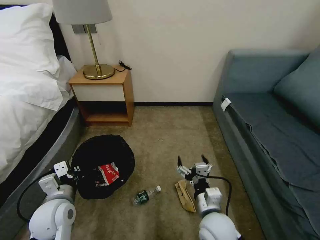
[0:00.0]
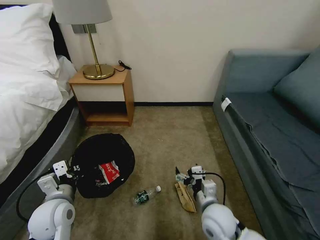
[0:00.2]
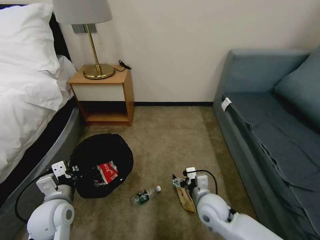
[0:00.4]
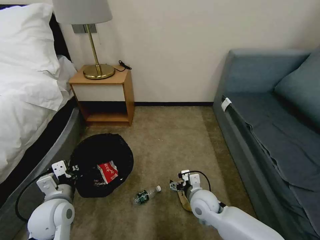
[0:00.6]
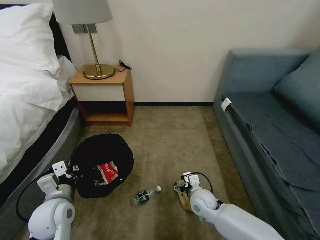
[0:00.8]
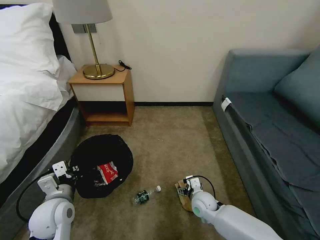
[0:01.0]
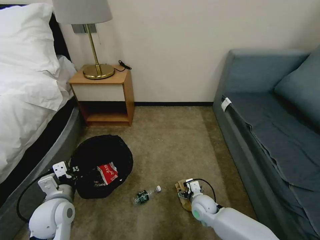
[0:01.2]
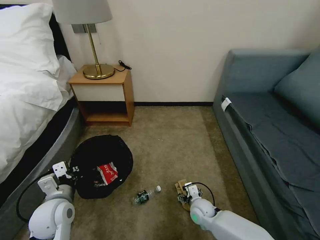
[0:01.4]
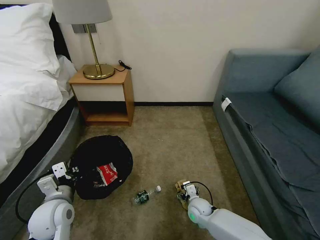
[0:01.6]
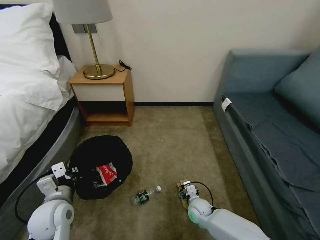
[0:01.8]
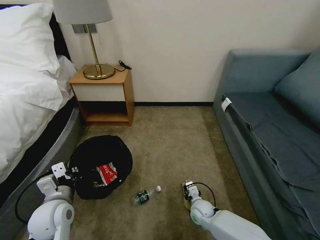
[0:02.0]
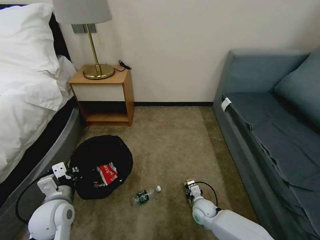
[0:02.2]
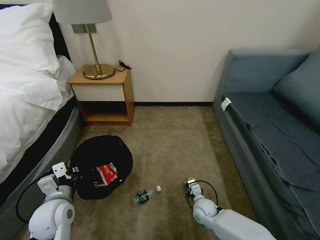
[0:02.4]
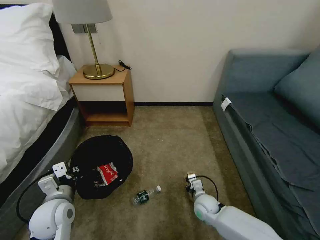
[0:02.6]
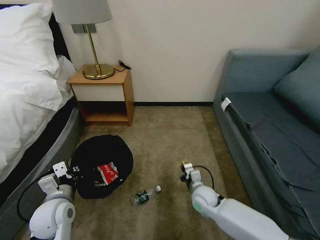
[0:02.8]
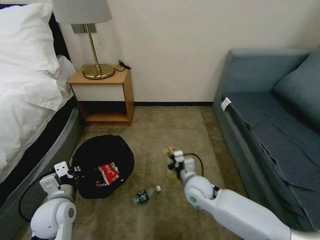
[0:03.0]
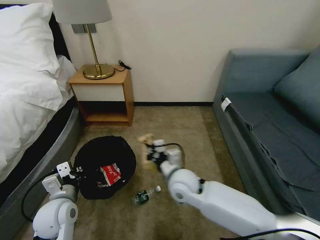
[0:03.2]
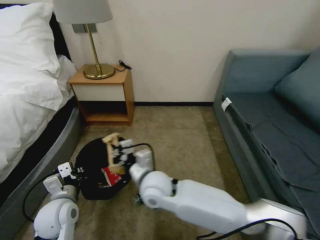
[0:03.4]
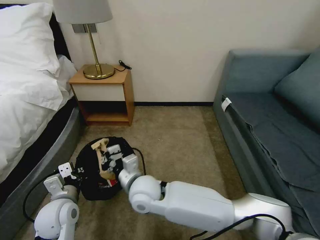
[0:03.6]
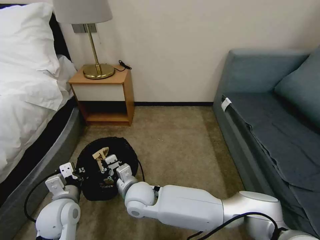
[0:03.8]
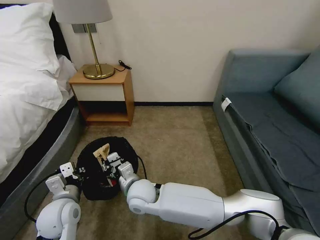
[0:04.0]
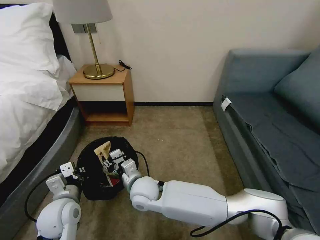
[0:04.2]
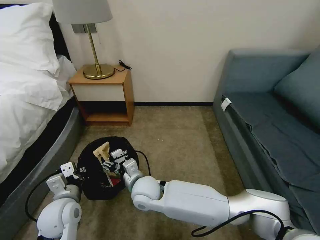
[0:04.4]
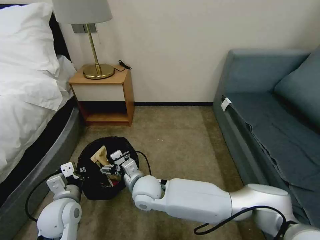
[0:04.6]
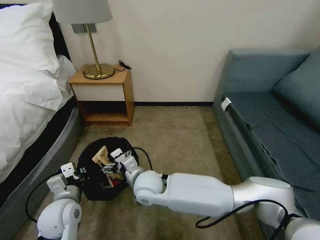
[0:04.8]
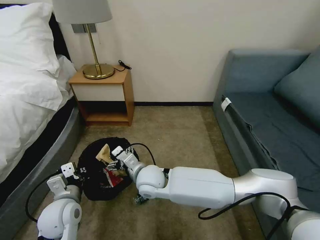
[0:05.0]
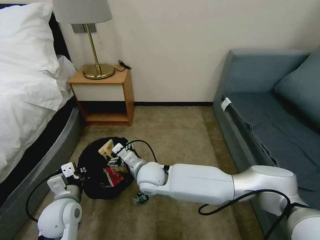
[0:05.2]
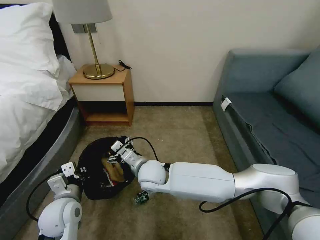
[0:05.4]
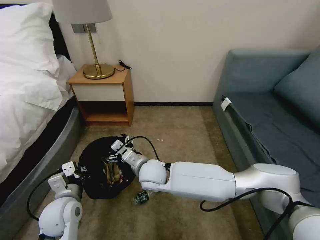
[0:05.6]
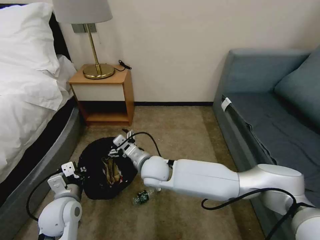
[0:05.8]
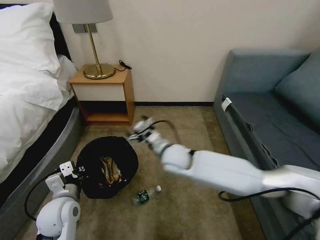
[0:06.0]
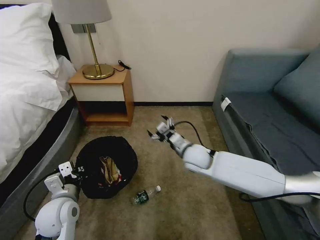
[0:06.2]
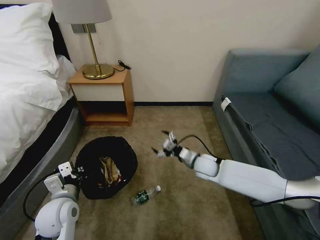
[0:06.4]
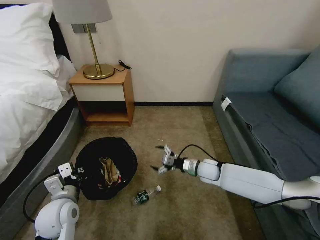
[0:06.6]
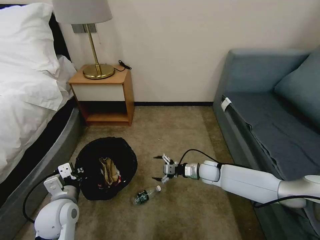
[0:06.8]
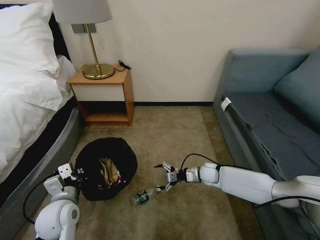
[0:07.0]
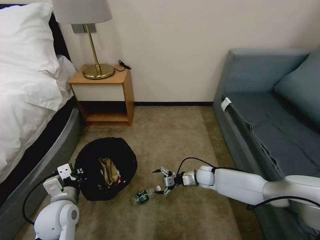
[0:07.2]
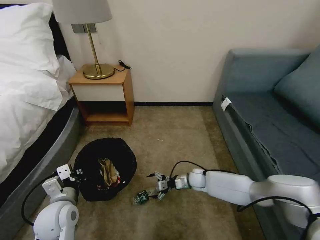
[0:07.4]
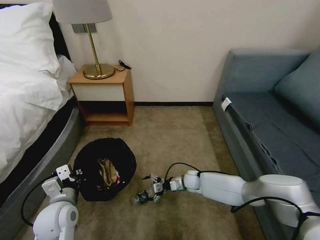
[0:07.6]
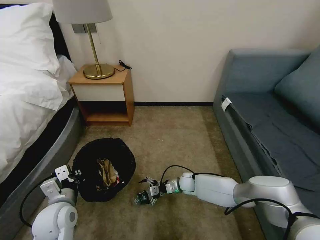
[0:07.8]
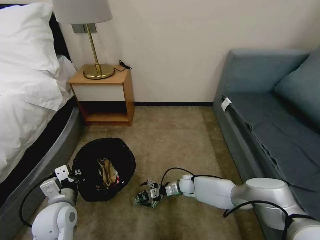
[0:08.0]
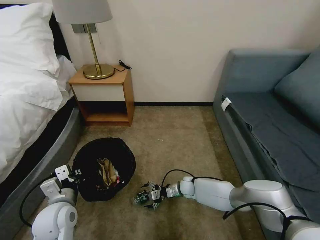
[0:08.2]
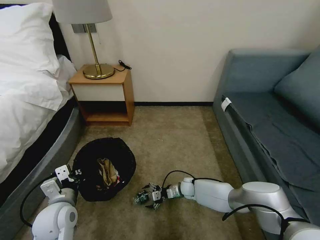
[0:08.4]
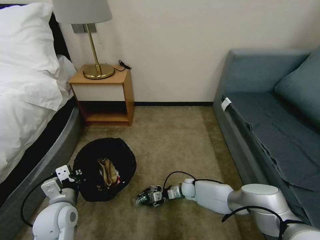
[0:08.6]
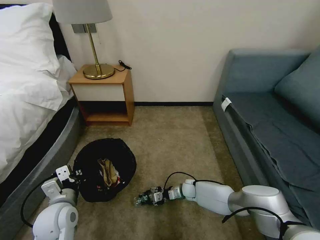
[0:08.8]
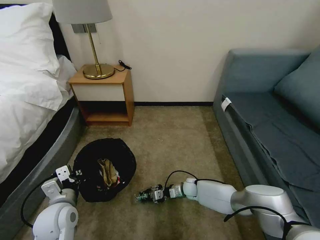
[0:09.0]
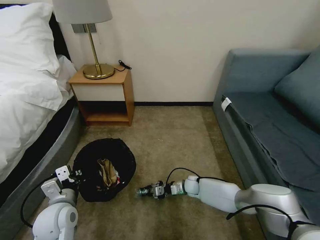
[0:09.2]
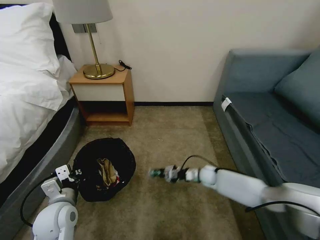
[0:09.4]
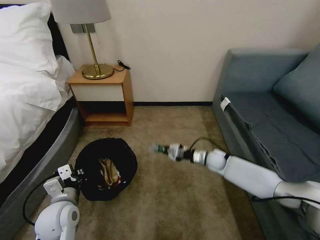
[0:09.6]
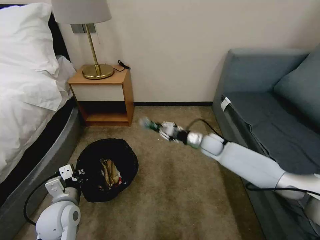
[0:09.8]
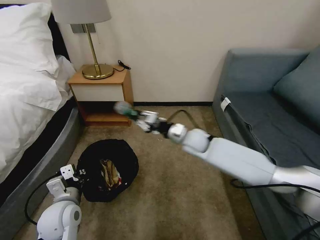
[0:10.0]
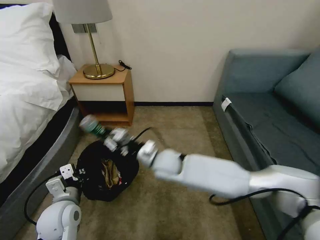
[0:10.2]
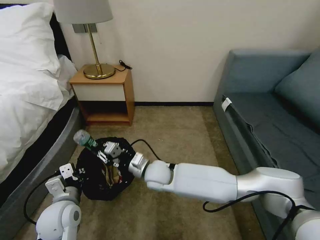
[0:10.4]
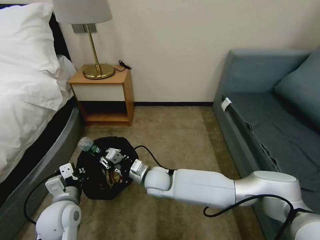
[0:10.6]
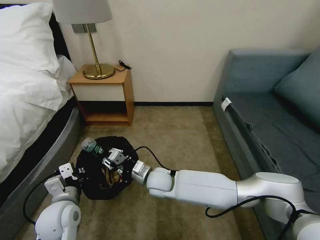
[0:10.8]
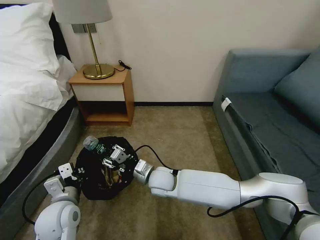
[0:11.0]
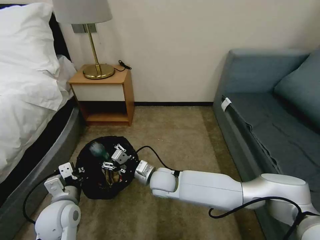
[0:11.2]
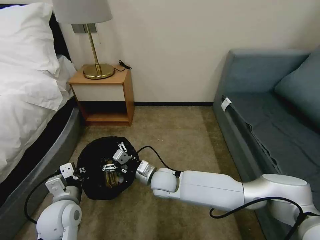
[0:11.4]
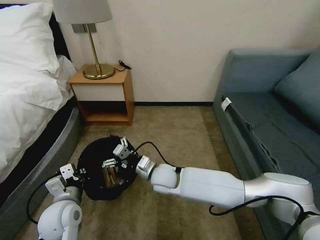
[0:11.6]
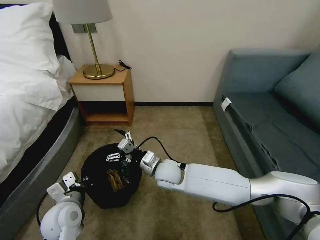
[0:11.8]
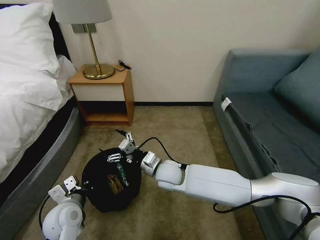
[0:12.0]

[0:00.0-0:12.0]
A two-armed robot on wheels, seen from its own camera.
Task of the whole recording: Pick up the trash bin, then pick up the garbage on the floor and place it into the trash bin.
0:00.0 to 0:01.6: The right gripper is displaced downward and forward by approximately 20 cm.
0:01.6 to 0:03.0: The right gripper shifts about 15 cm upward, and closes its fingers.
0:03.0 to 0:04.4: The right gripper shifts about 20 cm to the left, and opens.
0:04.4 to 0:06.0: The right gripper goes approximately 15 cm to the right, forward and upward.
0:06.0 to 0:07.6: The right gripper heads downward and to the right, covering roughly 25 cm.
0:07.6 to 0:09.0: The right gripper is displaced downward by approximately 5 cm, and closes its fingers.
0:09.0 to 0:10.4: The right gripper goes about 30 cm upward and to the left.
0:10.4 to 0:12.0: The right gripper opens up.

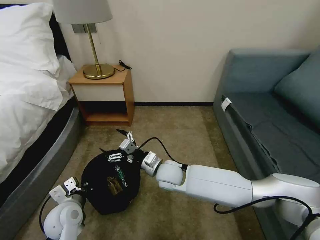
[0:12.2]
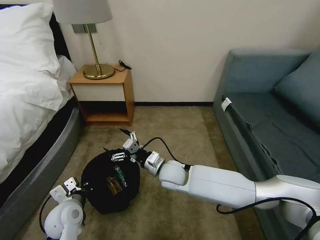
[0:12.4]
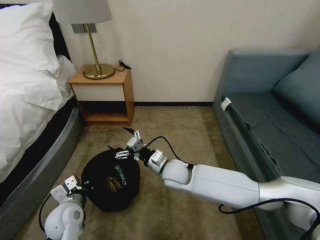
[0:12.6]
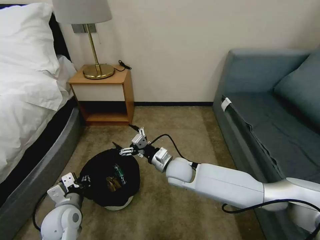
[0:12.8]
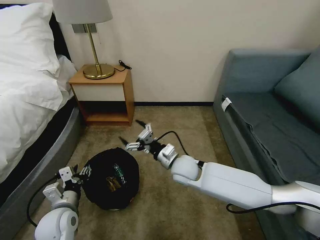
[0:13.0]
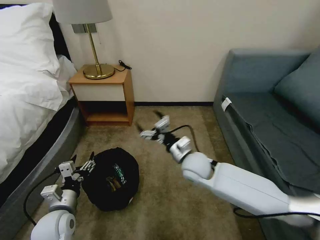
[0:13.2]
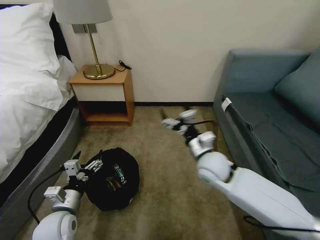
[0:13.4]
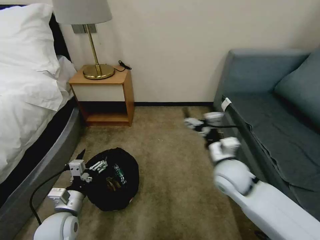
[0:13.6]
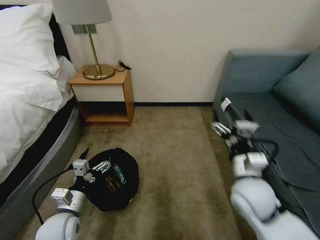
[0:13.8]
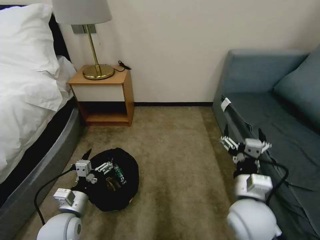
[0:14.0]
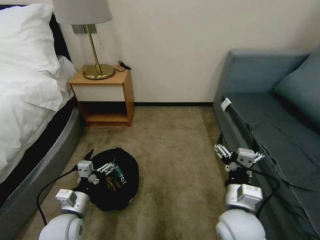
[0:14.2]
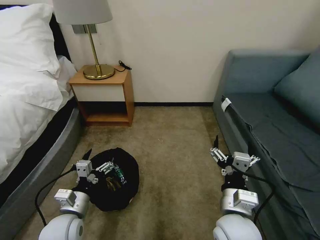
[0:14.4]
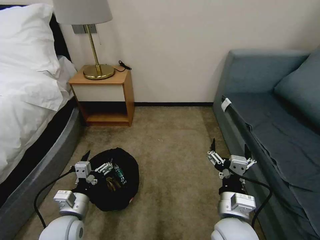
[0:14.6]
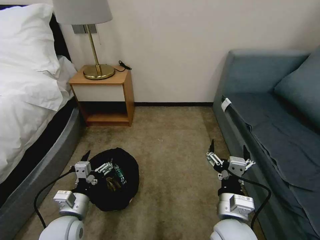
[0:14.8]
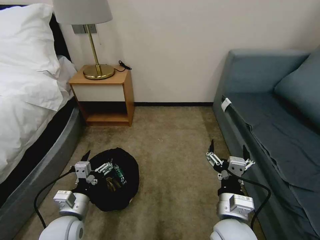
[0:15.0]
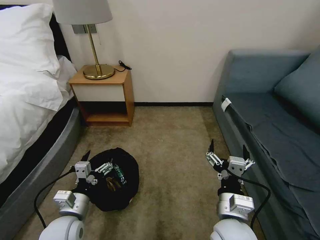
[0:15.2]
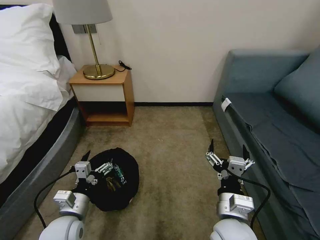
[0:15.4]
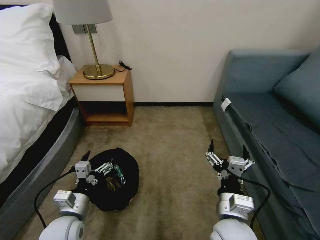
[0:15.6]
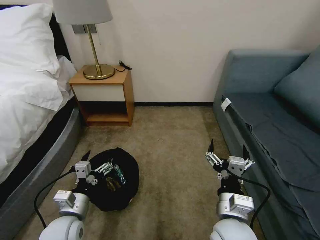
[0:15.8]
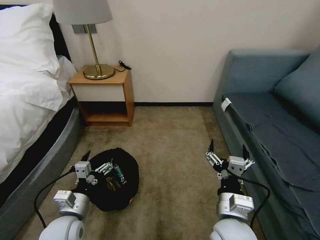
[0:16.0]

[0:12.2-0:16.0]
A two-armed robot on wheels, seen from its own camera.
Task of the whole recording: Pick up the trash bin, then pick up the garbage on the floor and place it into the trash bin.
0:12.2 to 0:13.4: The right gripper is displaced to the right and upward by about 15 cm, while the left gripper opens.
0:13.4 to 0:14.8: The right gripper travels backward by roughly 20 cm.
0:14.8 to 0:16.0: Both grippers stay about where they are.

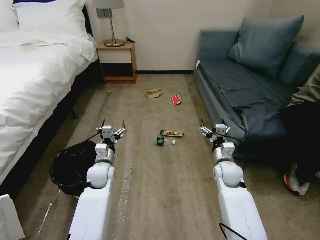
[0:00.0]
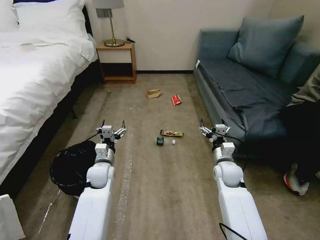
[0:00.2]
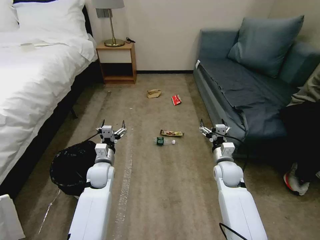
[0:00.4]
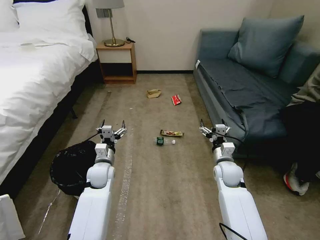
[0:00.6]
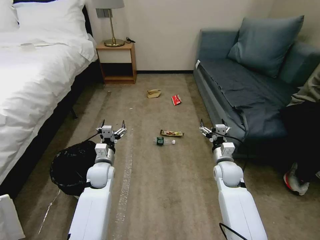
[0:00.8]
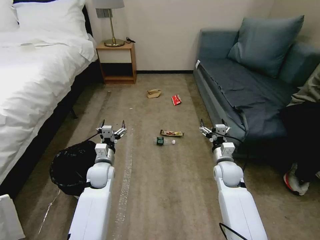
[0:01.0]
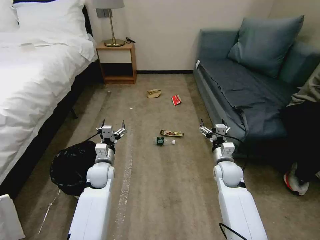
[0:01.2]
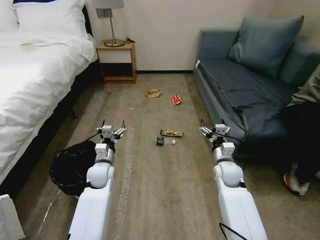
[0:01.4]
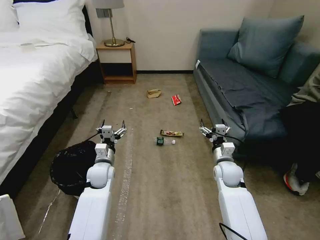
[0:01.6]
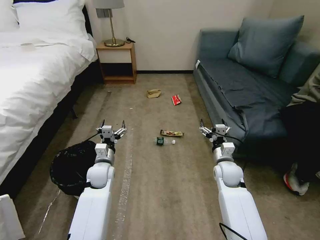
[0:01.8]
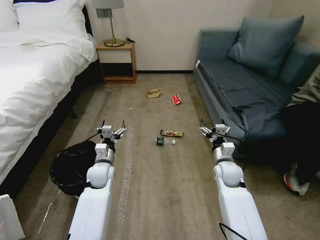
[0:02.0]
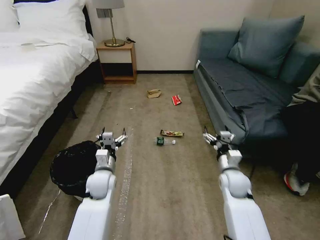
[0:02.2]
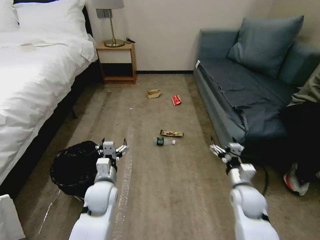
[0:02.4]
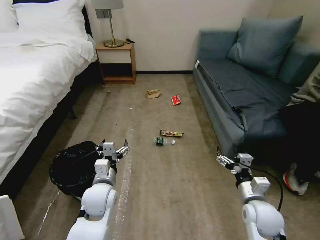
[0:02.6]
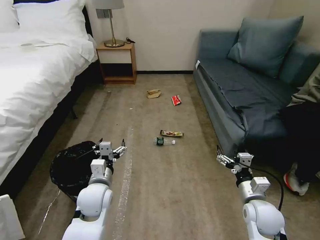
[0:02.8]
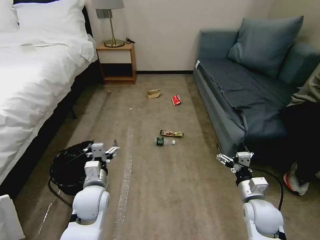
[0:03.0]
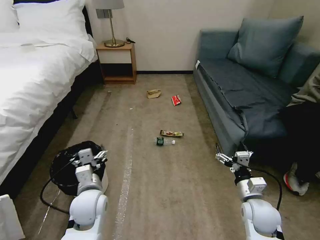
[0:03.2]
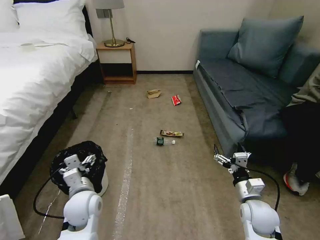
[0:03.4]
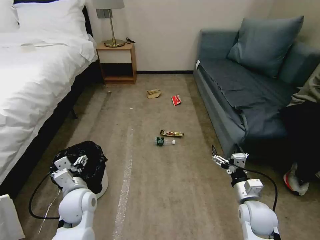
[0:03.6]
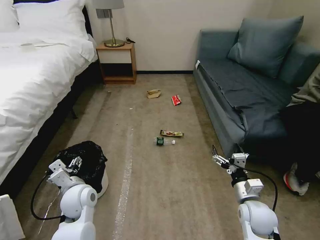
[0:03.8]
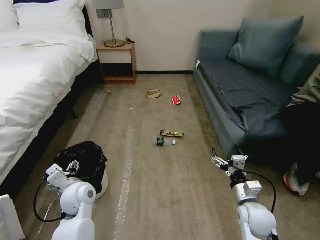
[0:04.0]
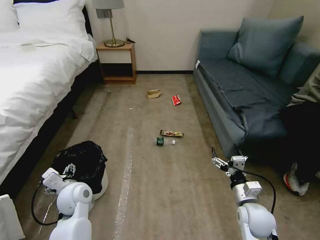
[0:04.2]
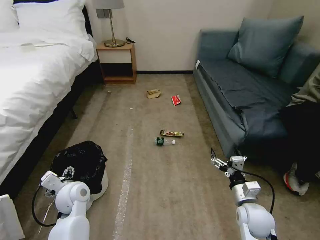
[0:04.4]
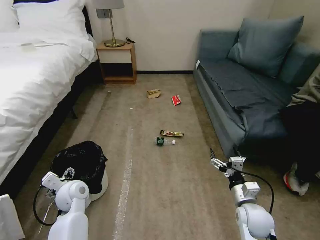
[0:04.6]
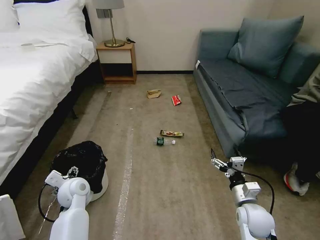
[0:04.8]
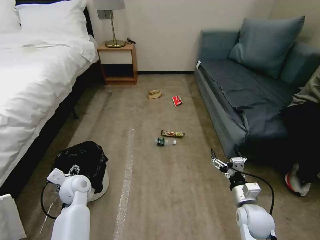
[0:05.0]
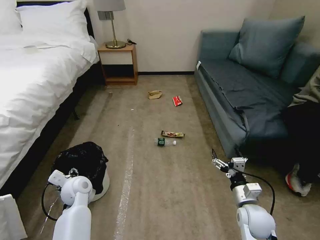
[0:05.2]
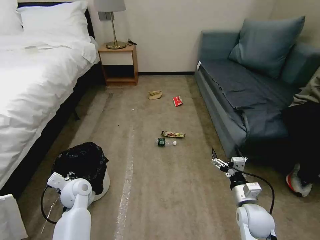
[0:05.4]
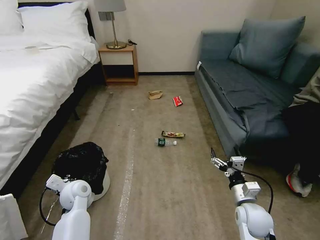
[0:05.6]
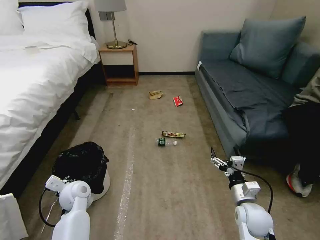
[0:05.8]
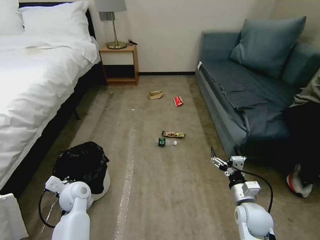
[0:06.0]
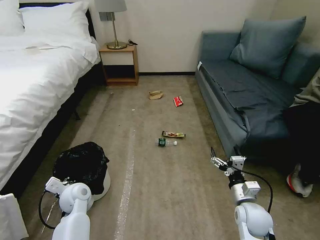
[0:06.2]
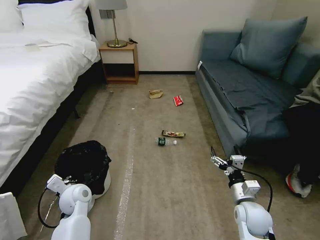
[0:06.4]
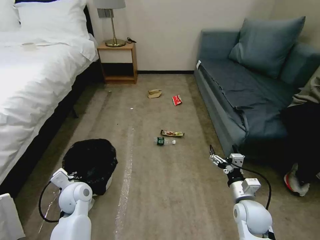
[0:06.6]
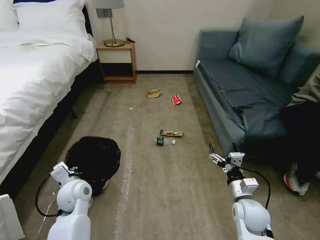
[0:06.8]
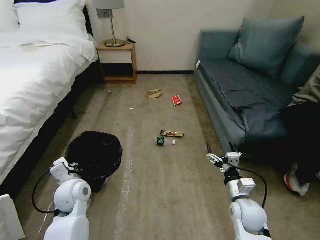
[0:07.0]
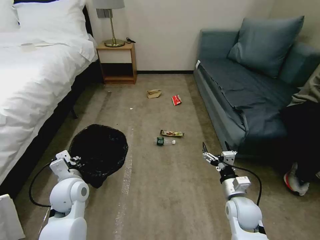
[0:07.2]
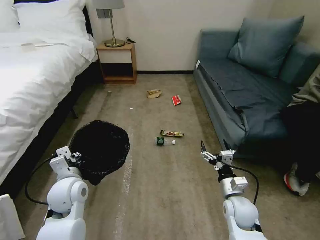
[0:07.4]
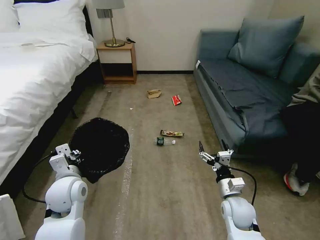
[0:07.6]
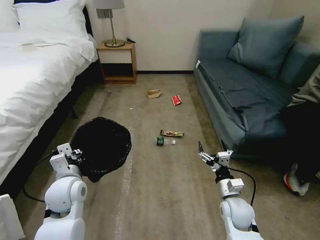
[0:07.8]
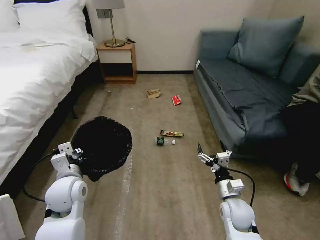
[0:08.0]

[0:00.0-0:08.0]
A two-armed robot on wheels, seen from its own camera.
Task of the whole recording: Pick up the trash bin, then pick up the garbage on the floor and place it into the trash bin.
0:01.6 to 0:03.2: The grippers both shift backward by roughly 15 cm.
0:03.2 to 0:04.8: The left gripper travels to the left and forward by about 10 cm.
0:04.8 to 0:06.4: The left gripper closes.
0:06.4 to 0:08.0: The left gripper travels upward by approximately 10 cm.
